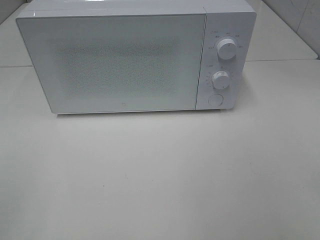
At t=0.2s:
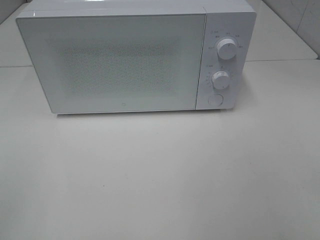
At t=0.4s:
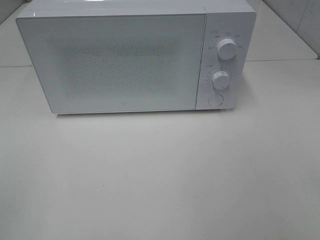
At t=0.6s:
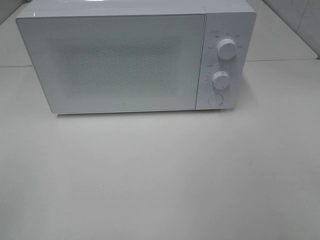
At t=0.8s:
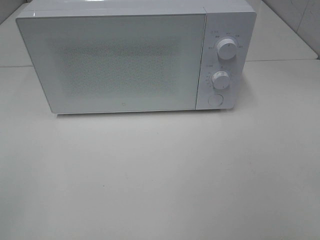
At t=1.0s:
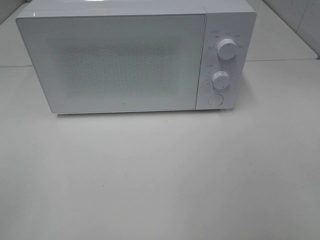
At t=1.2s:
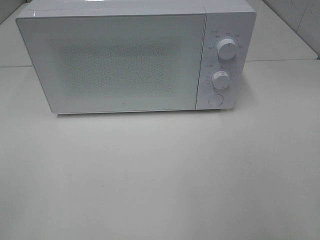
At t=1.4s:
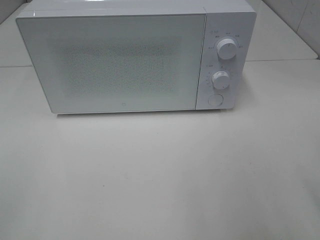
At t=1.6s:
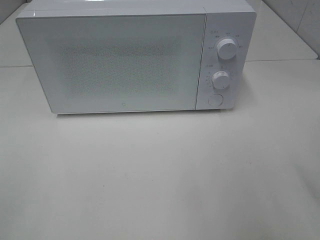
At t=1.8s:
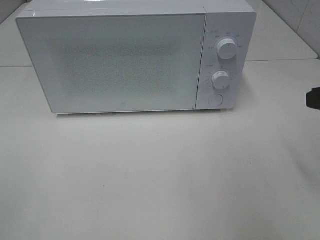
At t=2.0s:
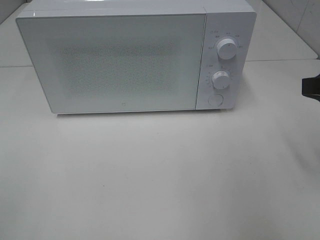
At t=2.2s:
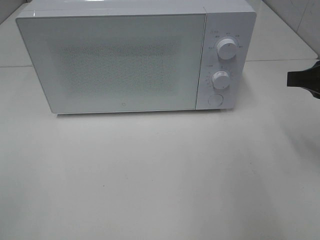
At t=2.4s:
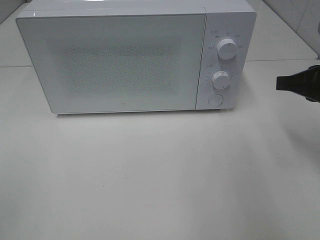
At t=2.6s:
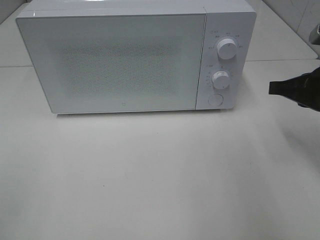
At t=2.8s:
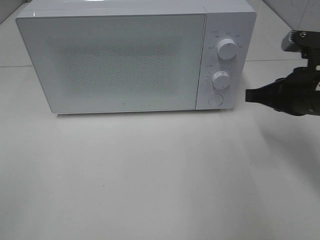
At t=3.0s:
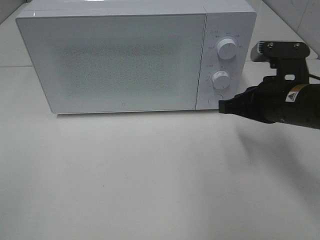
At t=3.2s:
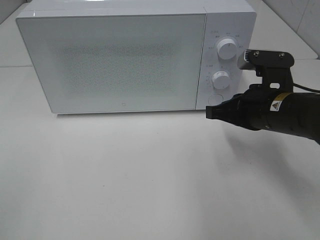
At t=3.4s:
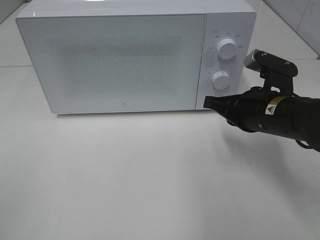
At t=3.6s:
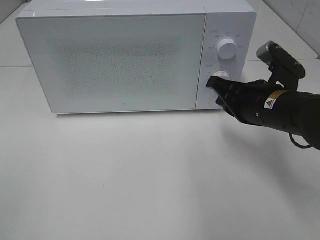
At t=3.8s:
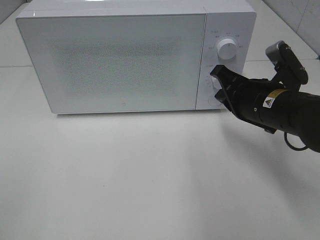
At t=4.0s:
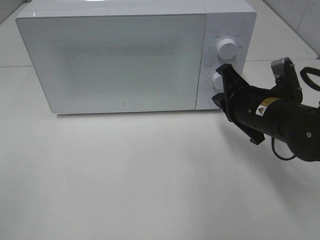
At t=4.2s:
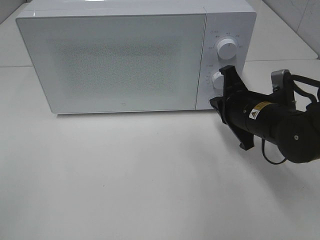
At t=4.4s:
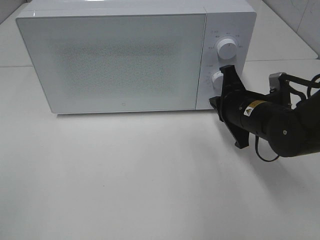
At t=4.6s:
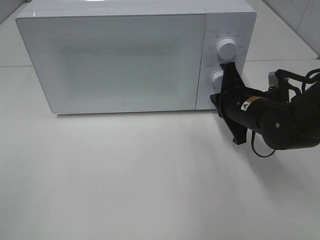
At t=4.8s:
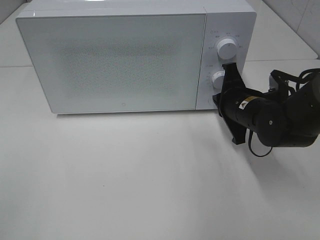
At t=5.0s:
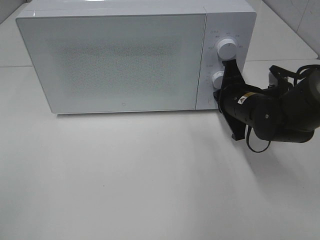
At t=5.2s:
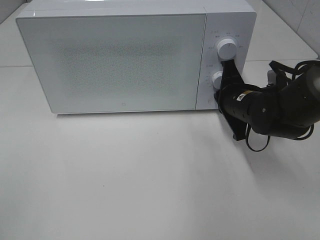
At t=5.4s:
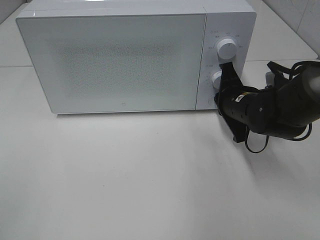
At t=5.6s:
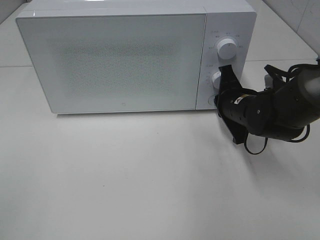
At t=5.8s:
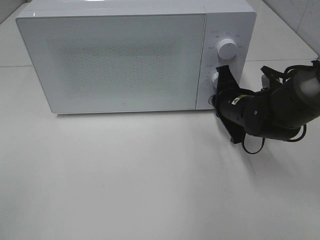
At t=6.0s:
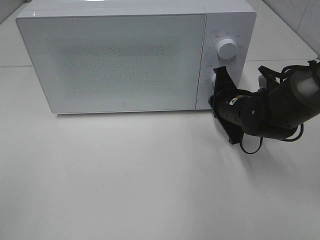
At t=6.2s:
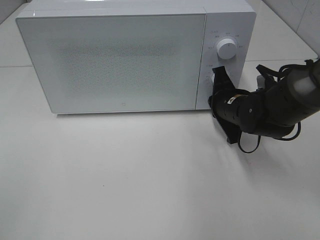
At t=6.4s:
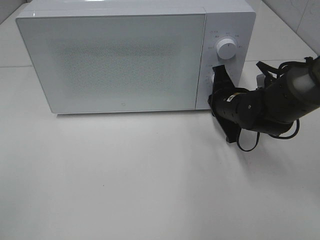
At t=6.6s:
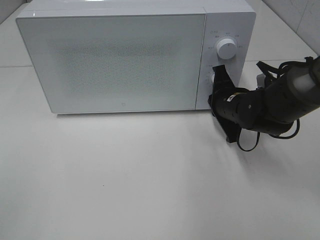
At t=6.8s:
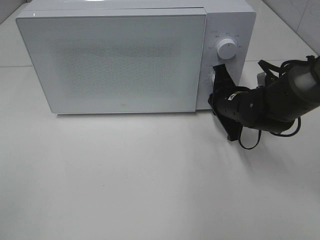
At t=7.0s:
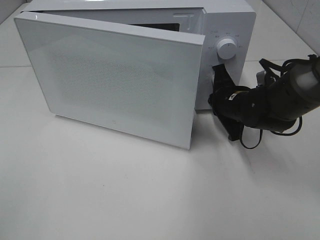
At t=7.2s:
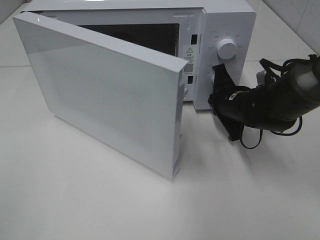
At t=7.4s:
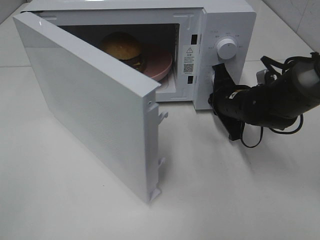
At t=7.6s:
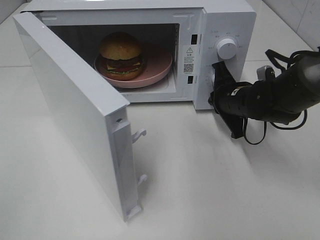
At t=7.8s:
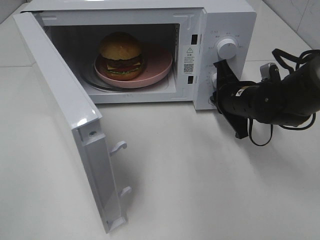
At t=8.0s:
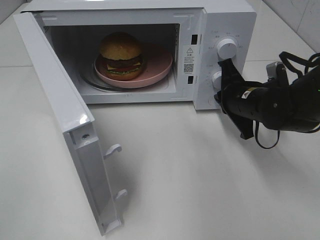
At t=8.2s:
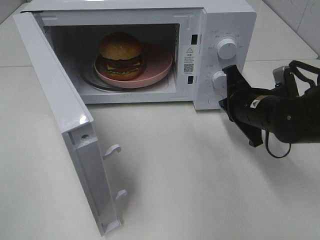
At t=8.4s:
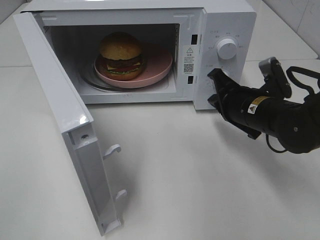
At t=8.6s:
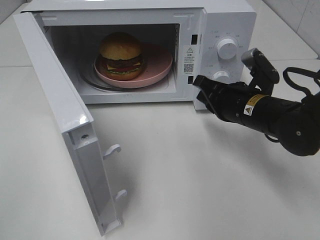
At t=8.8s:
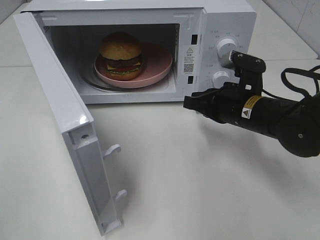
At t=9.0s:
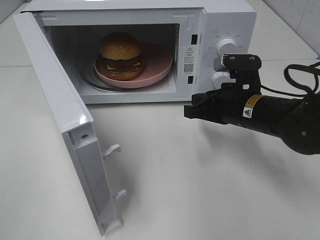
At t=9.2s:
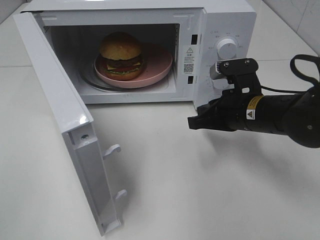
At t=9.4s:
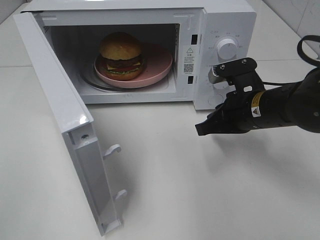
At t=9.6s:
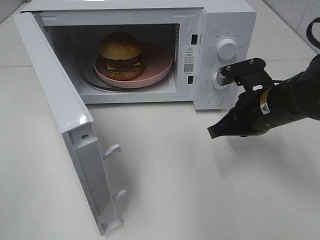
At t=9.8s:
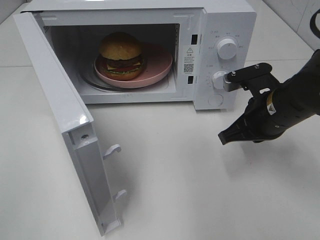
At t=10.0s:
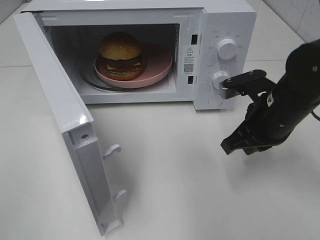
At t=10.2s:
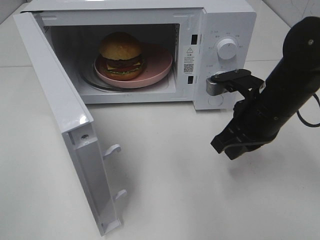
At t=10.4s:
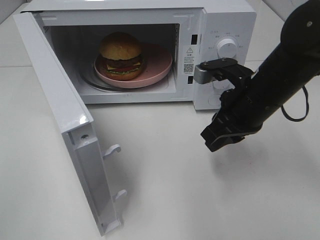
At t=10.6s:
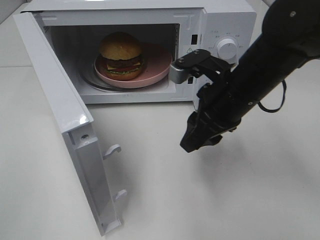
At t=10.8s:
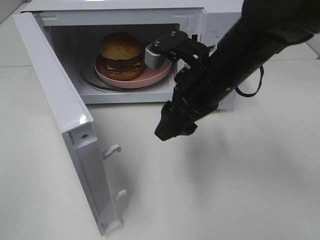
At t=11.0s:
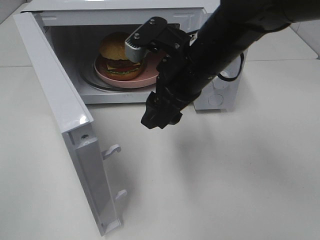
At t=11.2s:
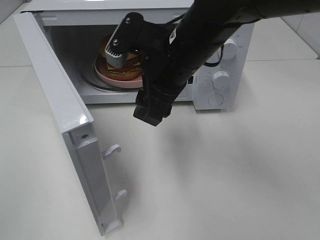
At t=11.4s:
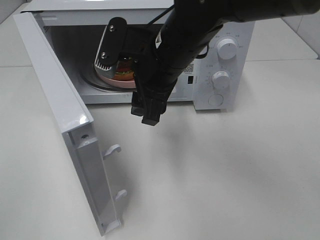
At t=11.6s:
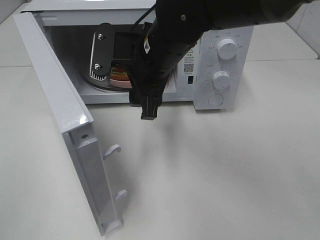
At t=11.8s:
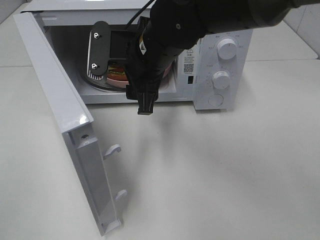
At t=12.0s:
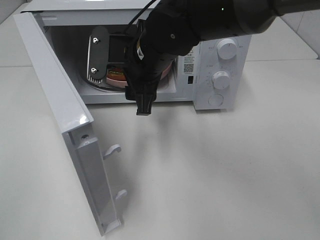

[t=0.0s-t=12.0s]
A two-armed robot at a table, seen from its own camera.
Task of the whole recording: Heat the burger.
Step, t=0.0s to t=7.8s: Right hand: press the switch.
t=1.6s to t=3.0s: The right gripper heads forward, downward and to the left, covering about 15 cm, and closes up.
t=3.0s to t=4.4s: The right gripper goes some 5 cm downward.
t=4.4s to t=6.0s: There are only small adjustments of the grippers.
t=7.6s to t=9.0s: The right gripper goes about 5 cm backward.
t=9.0s to t=10.4s: The right gripper heads upward, covering roughly 5 cm.
t=10.4s to t=12.0s: The right gripper is displaced to the left by about 15 cm, and opens.

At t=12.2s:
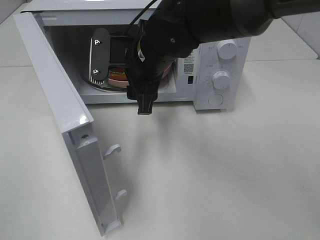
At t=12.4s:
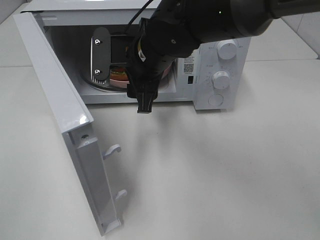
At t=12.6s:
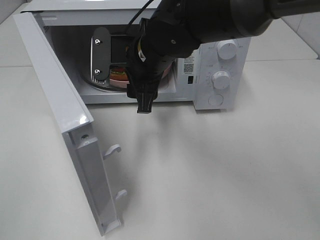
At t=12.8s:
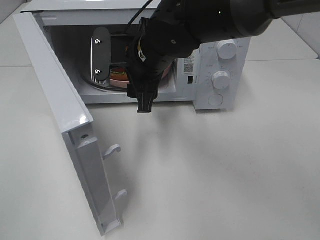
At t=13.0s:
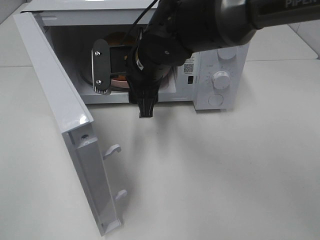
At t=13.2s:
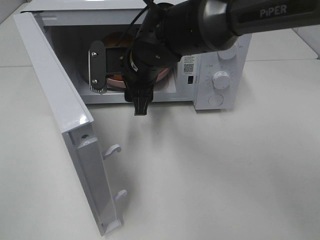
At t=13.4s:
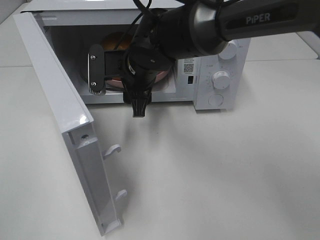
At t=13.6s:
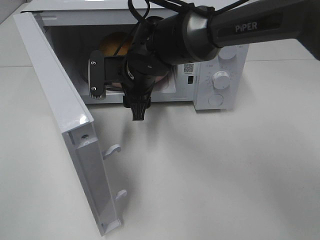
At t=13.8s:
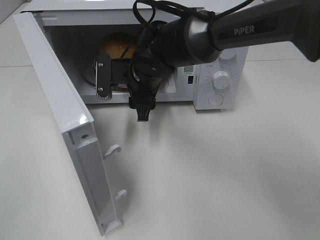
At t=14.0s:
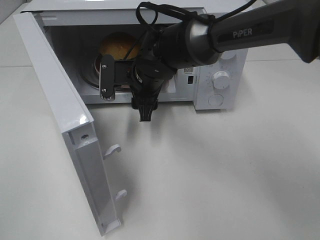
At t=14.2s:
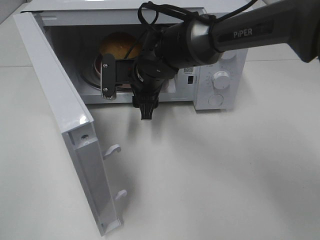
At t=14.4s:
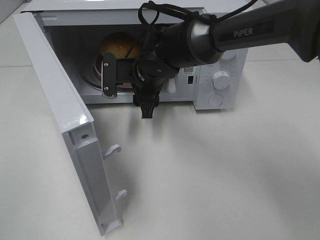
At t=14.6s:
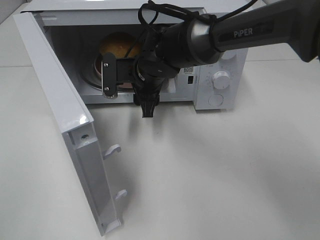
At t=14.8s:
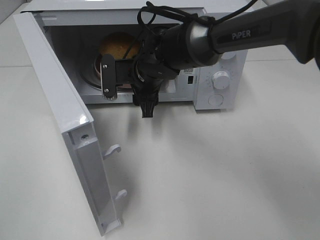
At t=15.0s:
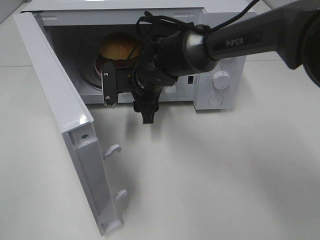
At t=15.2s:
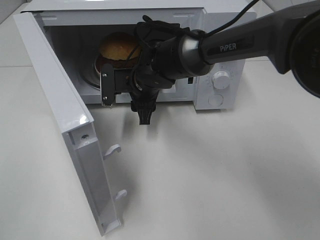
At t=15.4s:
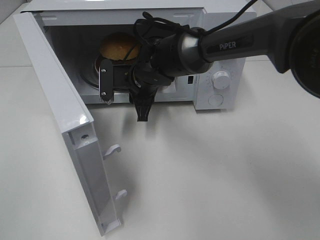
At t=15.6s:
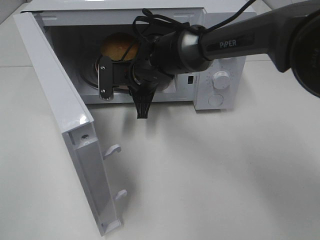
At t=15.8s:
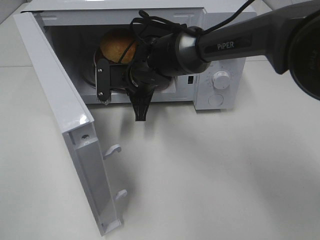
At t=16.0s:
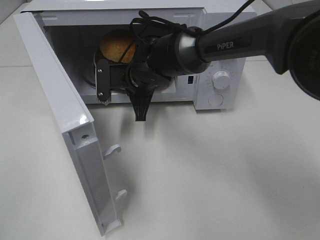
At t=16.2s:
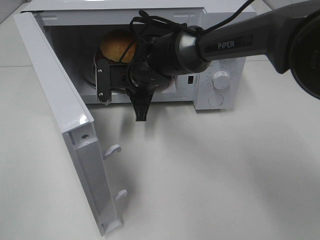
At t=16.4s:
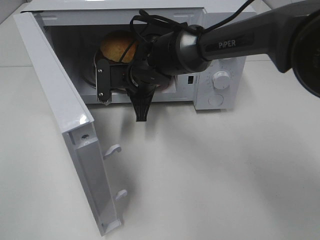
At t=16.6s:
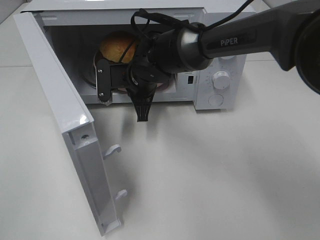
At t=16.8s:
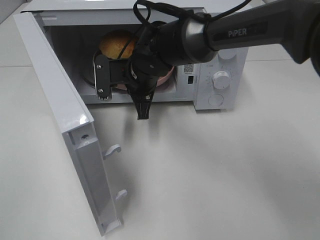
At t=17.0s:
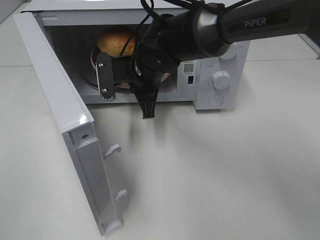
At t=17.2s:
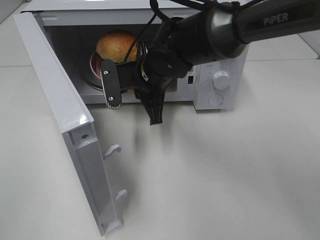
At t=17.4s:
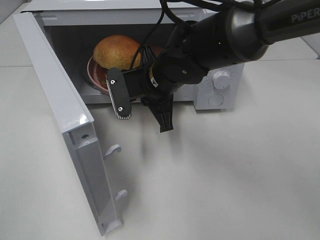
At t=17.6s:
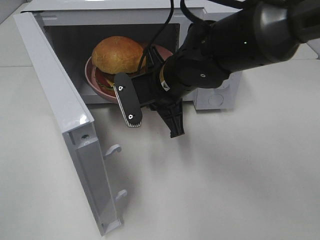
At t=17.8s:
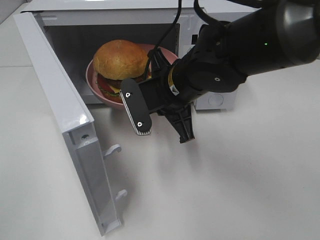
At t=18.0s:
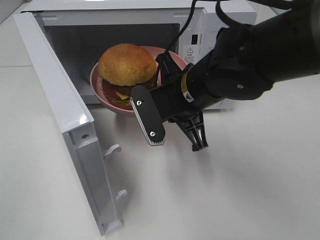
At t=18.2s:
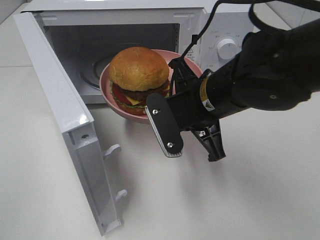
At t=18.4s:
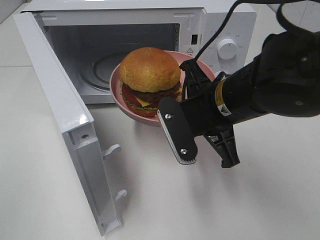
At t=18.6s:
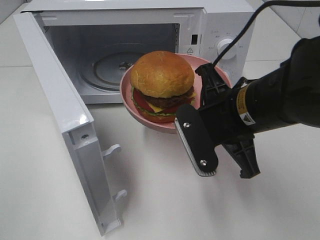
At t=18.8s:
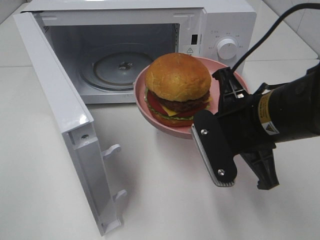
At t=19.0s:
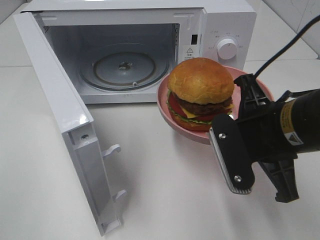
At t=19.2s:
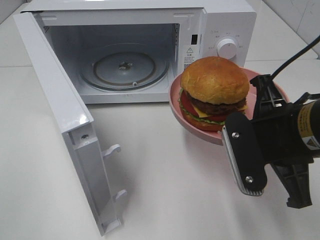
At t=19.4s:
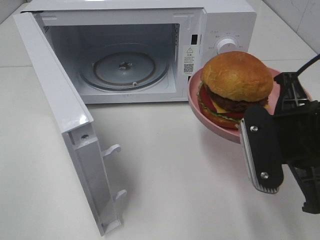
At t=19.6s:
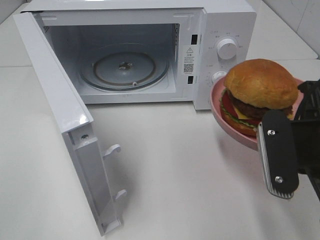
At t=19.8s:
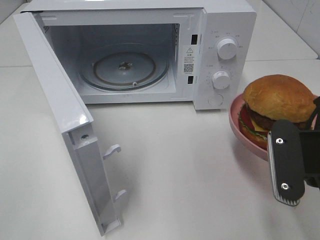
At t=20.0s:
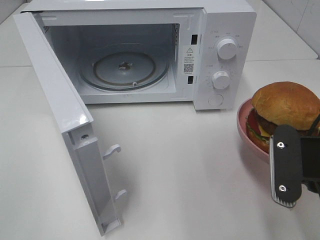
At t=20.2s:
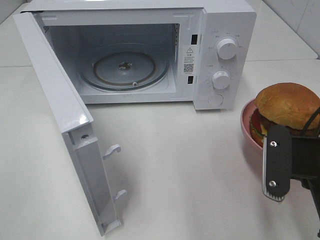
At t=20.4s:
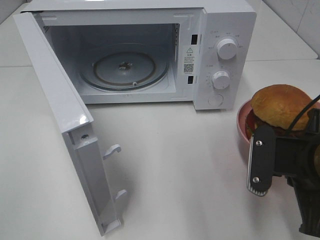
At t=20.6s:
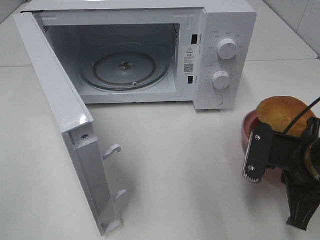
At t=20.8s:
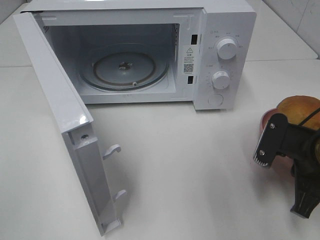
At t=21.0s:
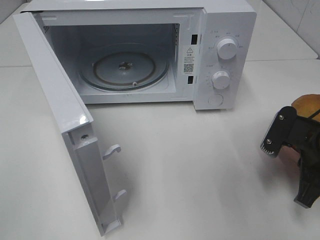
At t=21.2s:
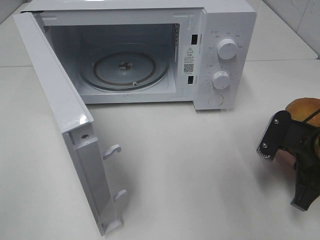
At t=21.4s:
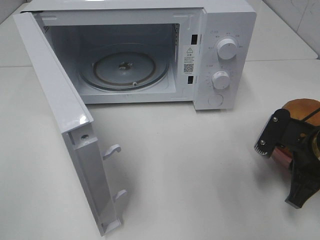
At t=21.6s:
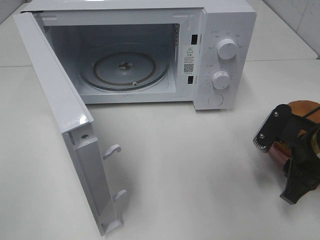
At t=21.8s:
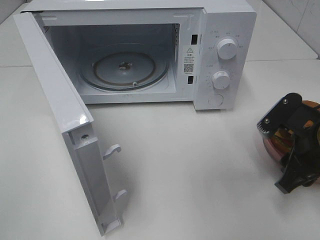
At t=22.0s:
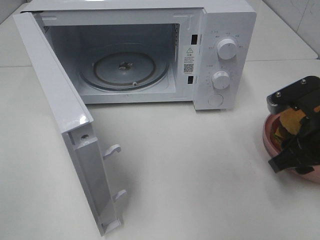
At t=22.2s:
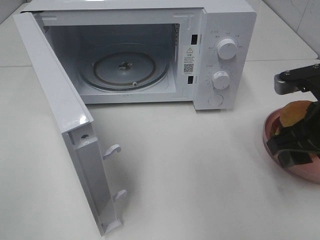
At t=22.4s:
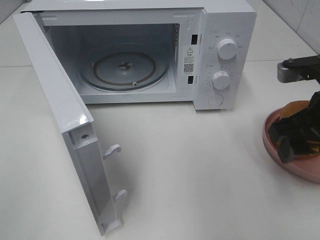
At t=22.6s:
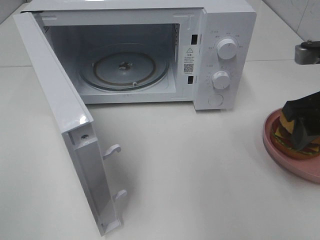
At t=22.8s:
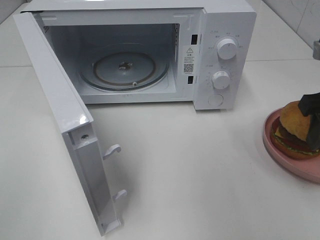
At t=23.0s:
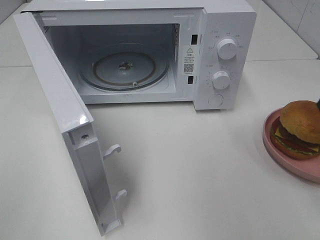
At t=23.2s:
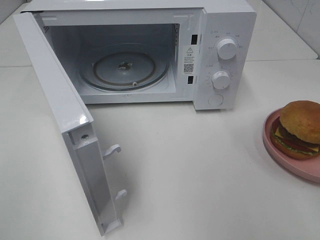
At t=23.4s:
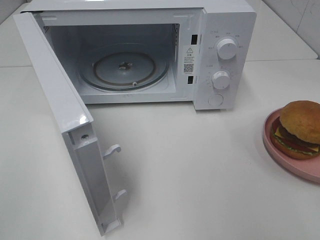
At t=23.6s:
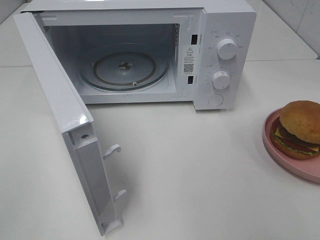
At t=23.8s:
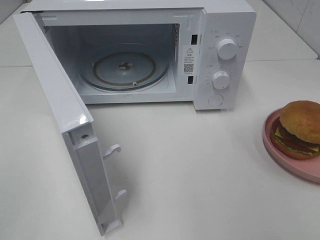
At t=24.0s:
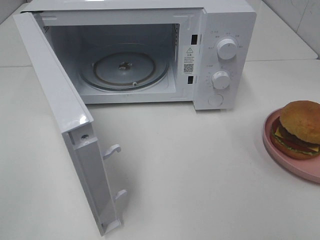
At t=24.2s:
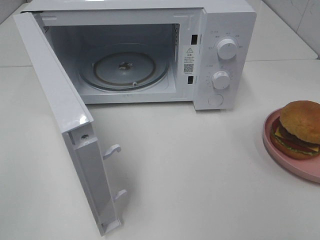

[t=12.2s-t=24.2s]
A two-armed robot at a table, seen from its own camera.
Task of the whole recording: Heat the burger.
Step, t=12.2s to t=15.6s: Right hand: grab the plate with the hamburger.
Step, t=15.8s to t=21.4s: Right hand: place the plate on the table.
t=12.2s to t=13.8s: The right gripper shifts some 5 cm downward.
t=13.8s to t=15.2s: The grippers stay close to where they were, moving slightly.
t=15.2s to t=16.6s: The right gripper closes its fingers.
t=16.6s to t=18.2s: The right gripper heads backward, to the right and upward, covering approximately 20 cm.
t=18.2s to t=19.8s: The right gripper is displaced to the right and backward by about 15 cm.
t=19.8s to t=21.2s: The right gripper moves downward and forward, roughly 10 cm.
t=21.2s to t=22.6s: The right gripper heads upward, covering roughly 10 cm, and opens.
t=22.6s to t=24.2s: The right gripper shifts approximately 25 cm backward.
